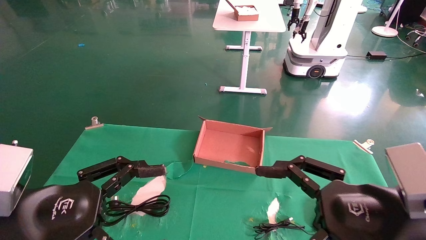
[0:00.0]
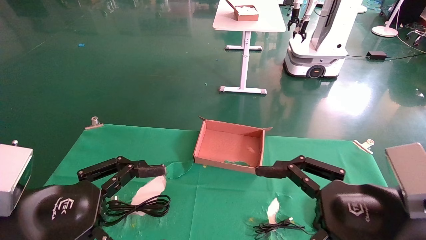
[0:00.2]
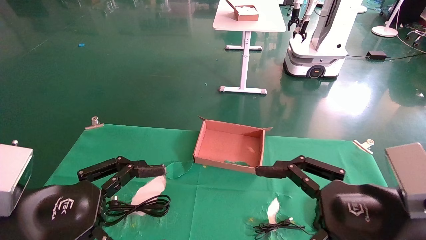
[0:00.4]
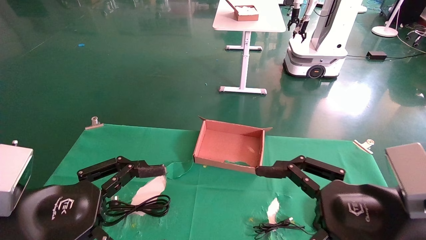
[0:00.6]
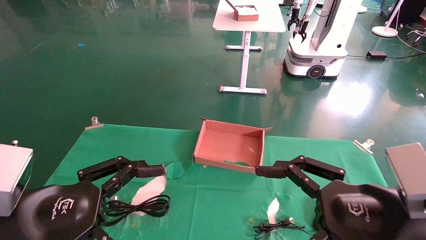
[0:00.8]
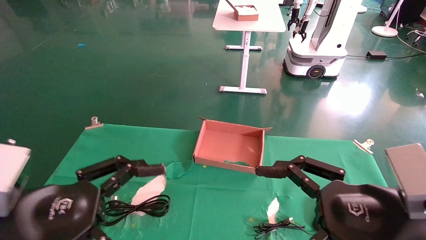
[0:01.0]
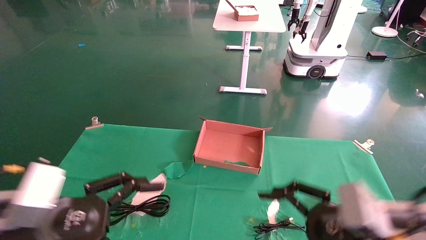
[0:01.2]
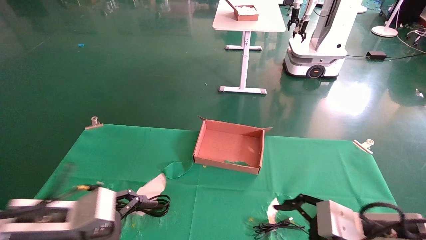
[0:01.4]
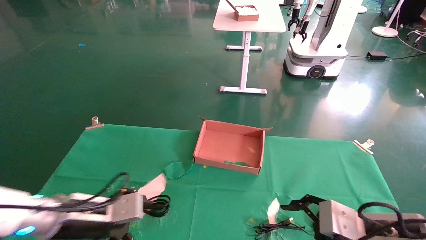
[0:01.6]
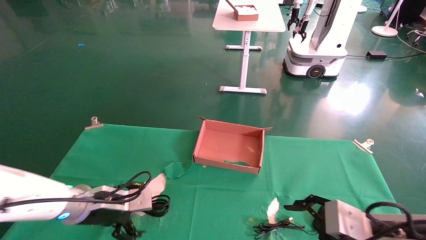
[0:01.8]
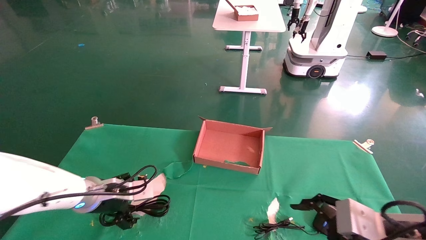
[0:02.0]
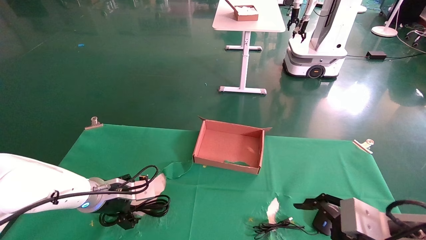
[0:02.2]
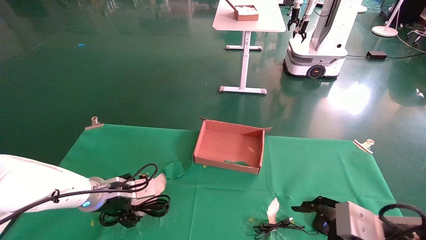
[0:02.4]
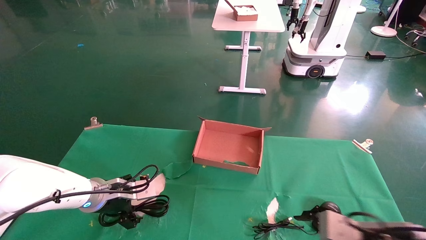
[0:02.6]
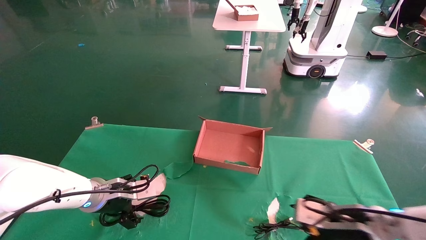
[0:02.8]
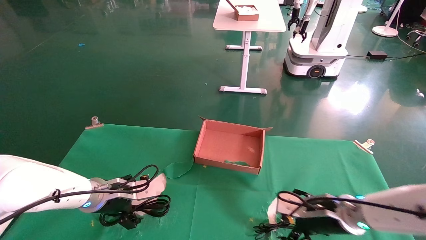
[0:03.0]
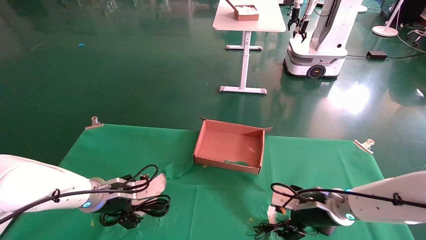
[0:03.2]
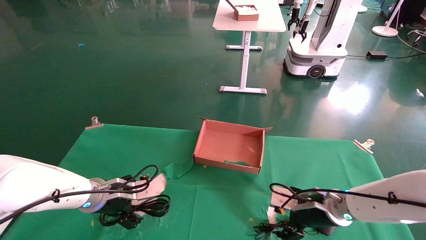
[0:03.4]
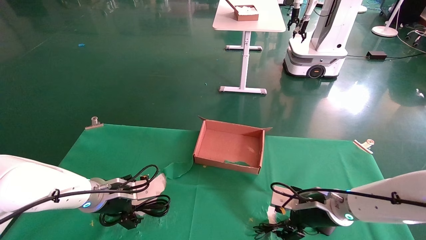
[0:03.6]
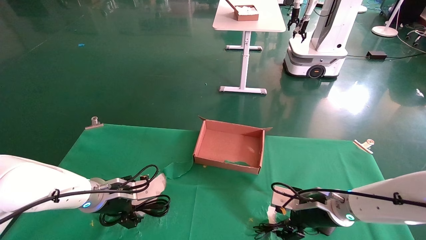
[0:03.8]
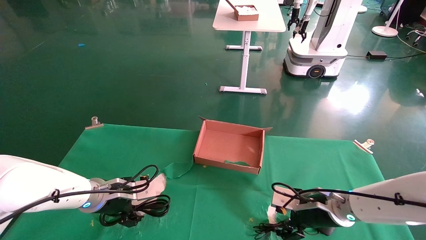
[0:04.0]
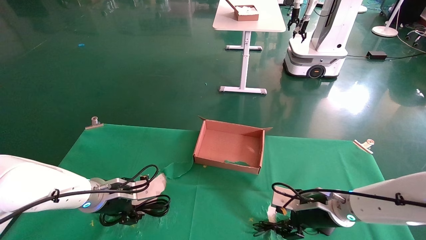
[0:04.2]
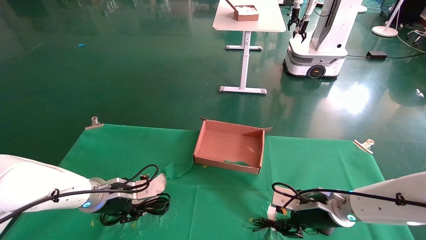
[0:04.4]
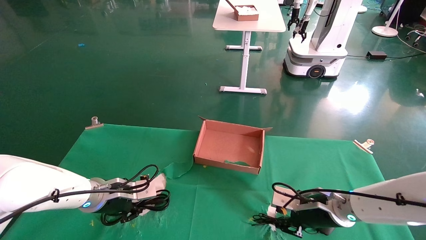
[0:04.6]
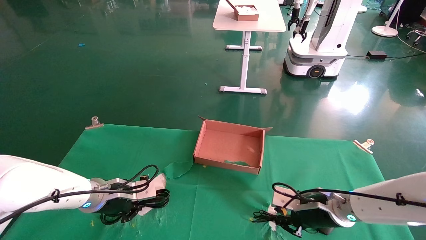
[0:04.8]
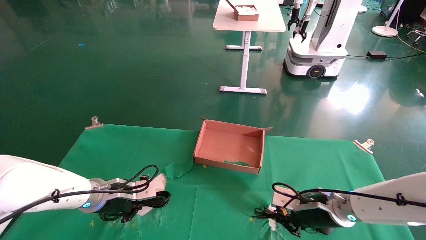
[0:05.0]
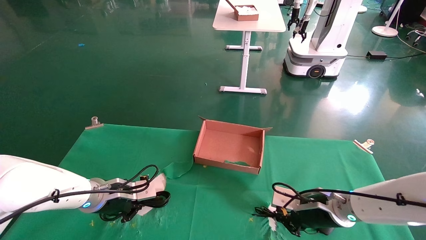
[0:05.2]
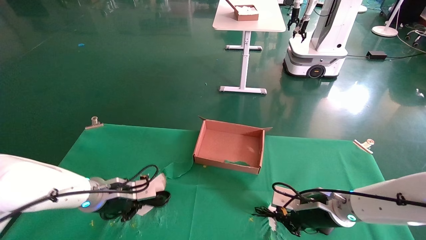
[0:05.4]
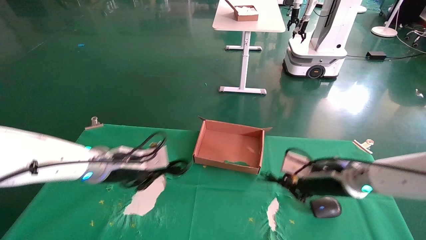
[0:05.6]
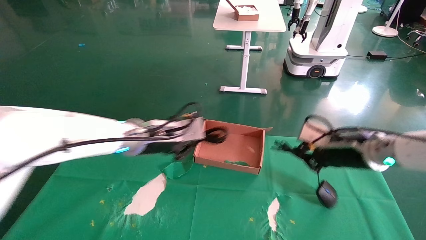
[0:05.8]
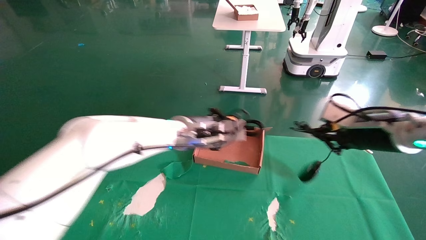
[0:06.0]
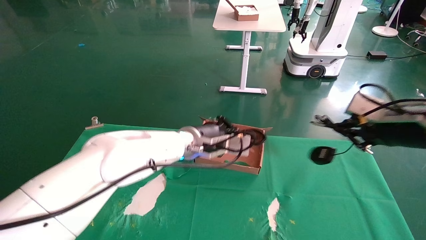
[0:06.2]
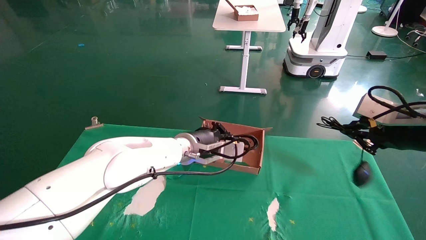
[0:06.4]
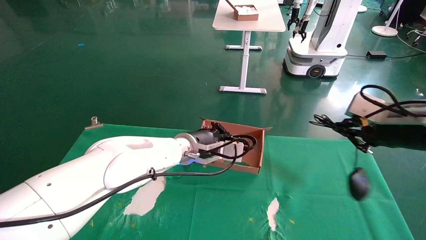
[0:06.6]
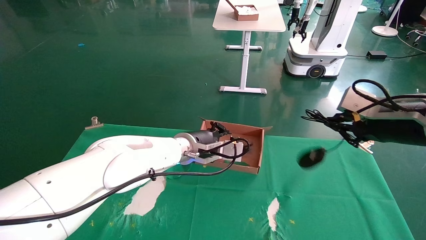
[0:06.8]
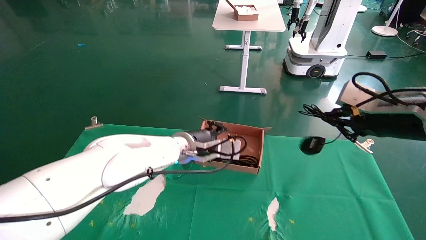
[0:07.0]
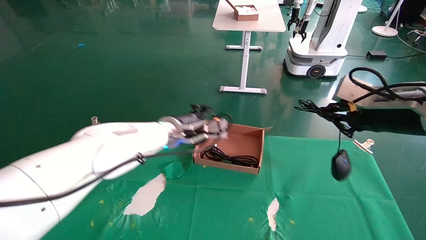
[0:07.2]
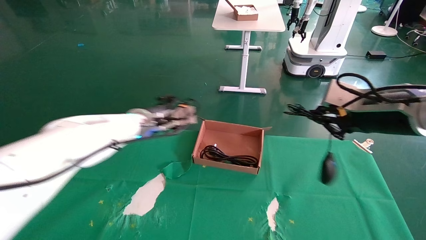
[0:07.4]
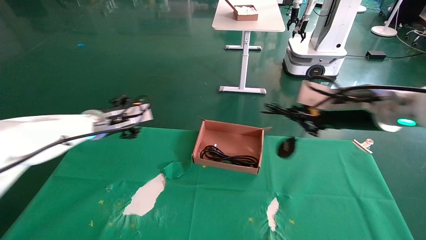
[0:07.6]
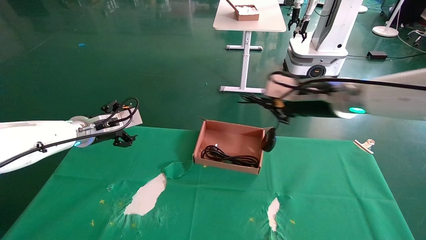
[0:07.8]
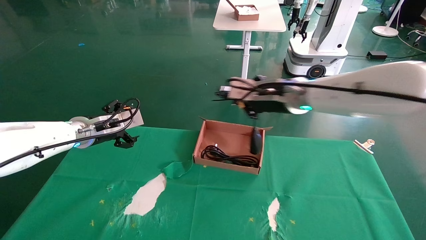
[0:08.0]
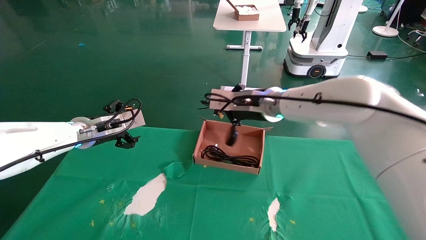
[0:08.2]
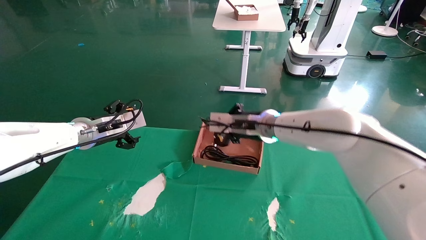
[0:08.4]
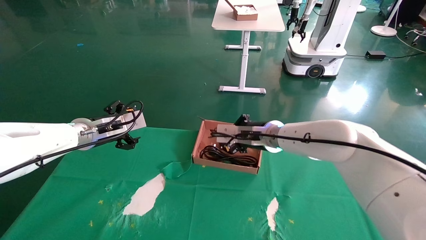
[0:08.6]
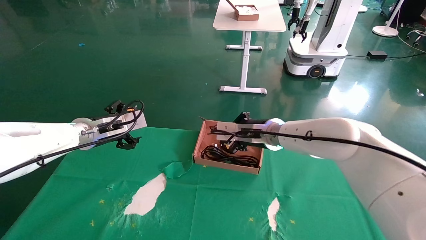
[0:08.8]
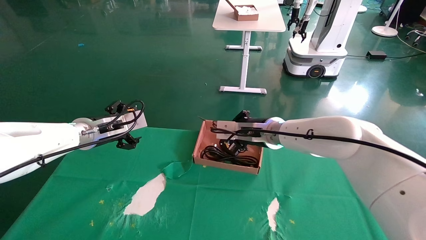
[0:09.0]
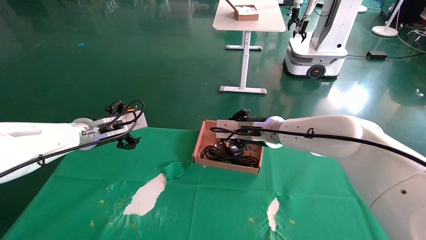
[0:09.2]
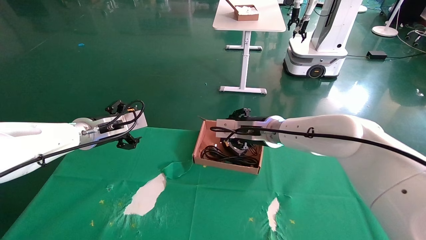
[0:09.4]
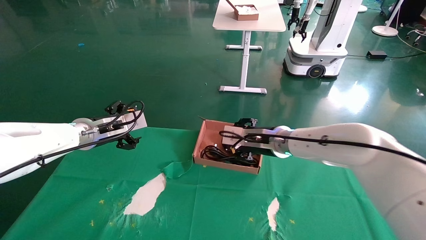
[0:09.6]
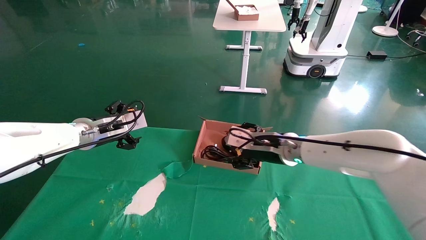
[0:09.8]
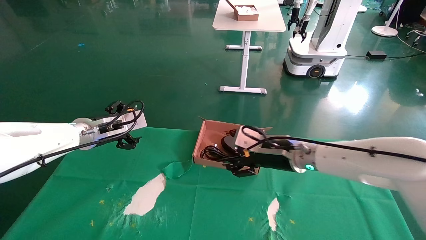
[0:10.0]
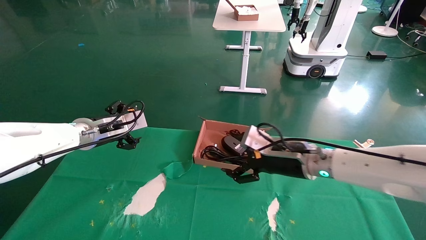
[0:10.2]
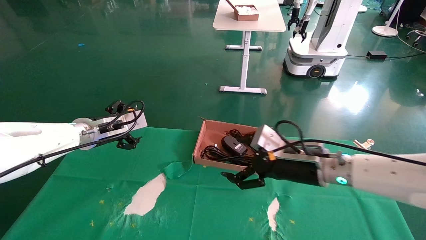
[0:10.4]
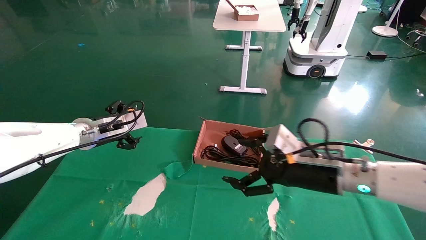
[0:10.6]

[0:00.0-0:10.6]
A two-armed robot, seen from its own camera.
Step, 0:01.4 to 0:05.8: Grab and lift both the mouse and power cord from the accessory packaging area at the same time.
Step, 0:06.0 to 0:09.4: Place the mouse and power cord into the box.
0:00.0 to 0:01.6: The right gripper heads downward and forward, covering approximately 10 cm, while the left gripper goes approximately 15 cm forward and downward.
0:01.6 to 0:03.0: The grippers both shift forward by roughly 10 cm.
0:03.0 to 0:04.6: The left gripper closes up; the right gripper closes its fingers.
0:04.6 to 0:06.0: The left gripper travels to the right and upward by approximately 20 cm, and closes up, while the right gripper heads upward and to the right, covering about 20 cm, and closes.
0:06.0 to 0:07.6: The right gripper shifts roughly 10 cm to the left and upward, while the left gripper shifts about 15 cm to the left, and opens.
0:07.6 to 0:09.0: The right gripper travels to the left, forward and downward by roughly 20 cm.
0:09.0 to 0:10.6: The right gripper is displaced backward and to the right by roughly 15 cm, and opens.

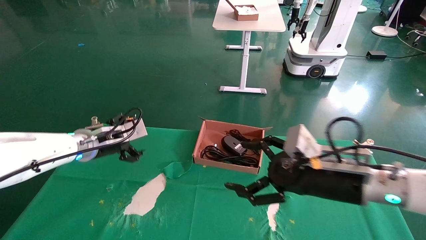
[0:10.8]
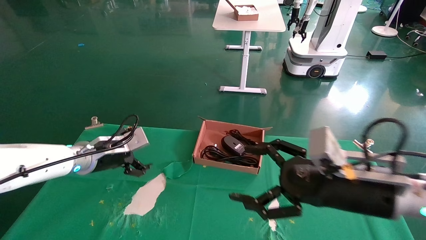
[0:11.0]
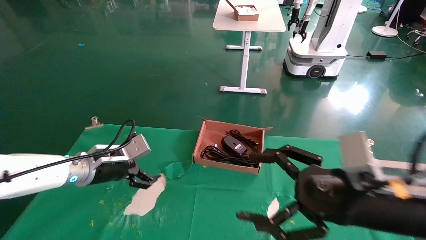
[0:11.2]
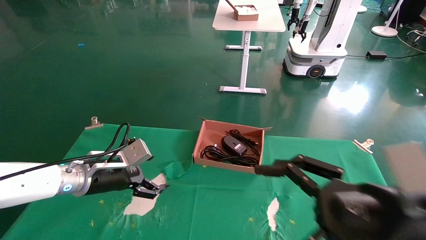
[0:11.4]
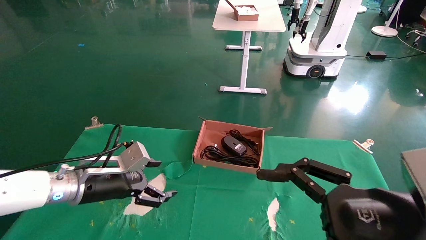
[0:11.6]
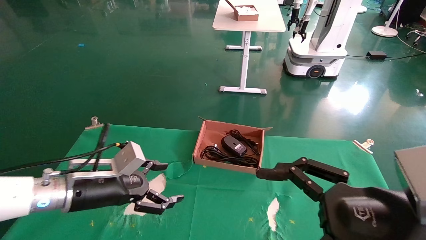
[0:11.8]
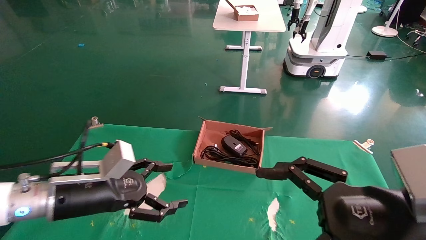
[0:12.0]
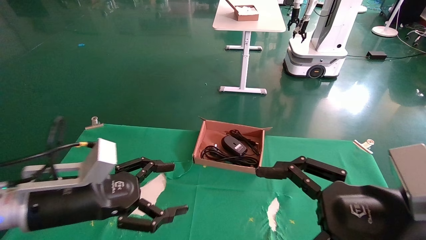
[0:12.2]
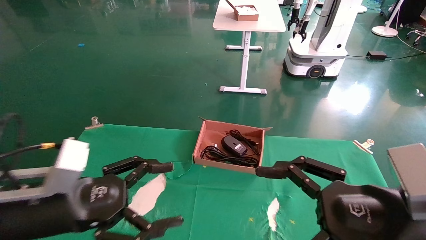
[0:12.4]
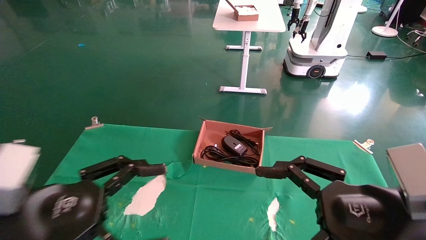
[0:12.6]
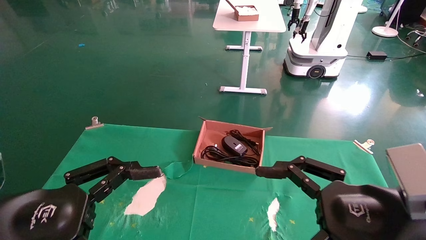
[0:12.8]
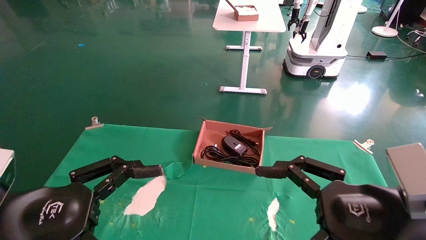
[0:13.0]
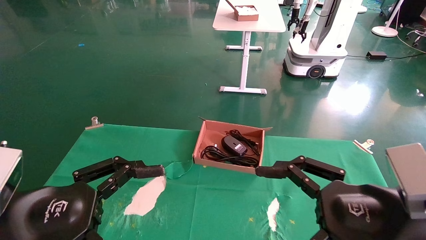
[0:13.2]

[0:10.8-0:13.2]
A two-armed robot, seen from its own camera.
0:10.8 to 0:12.0: The two grippers go approximately 15 cm backward.
0:12.0 to 0:13.2: The left gripper goes roughly 10 cm backward.
